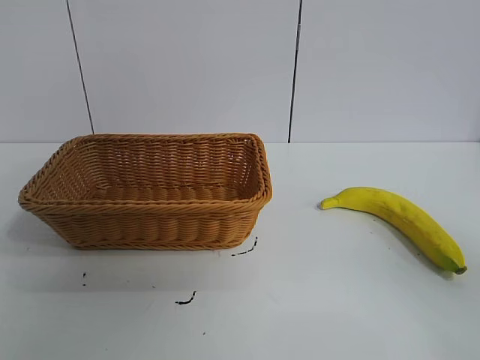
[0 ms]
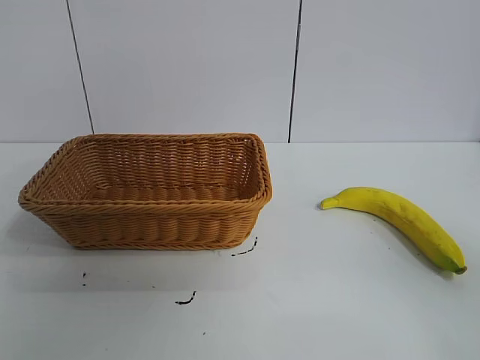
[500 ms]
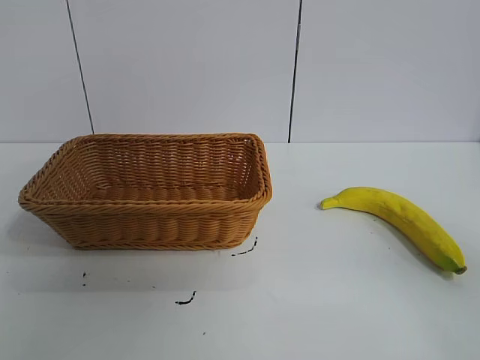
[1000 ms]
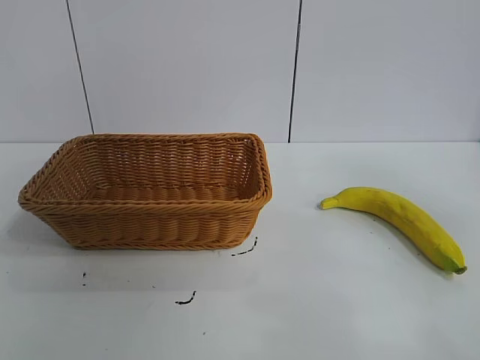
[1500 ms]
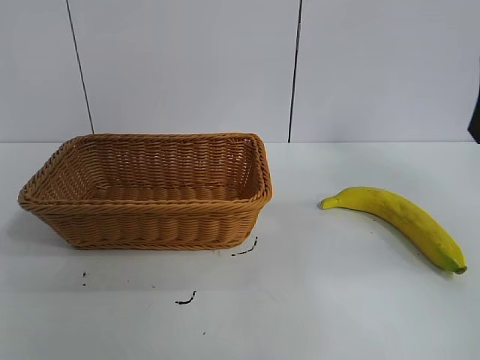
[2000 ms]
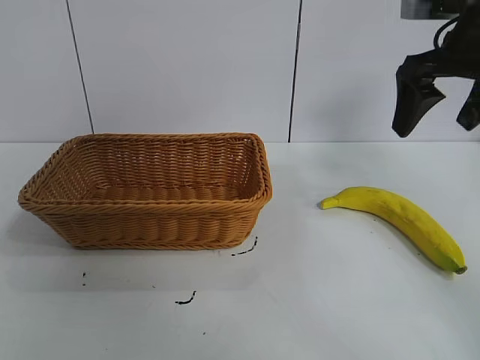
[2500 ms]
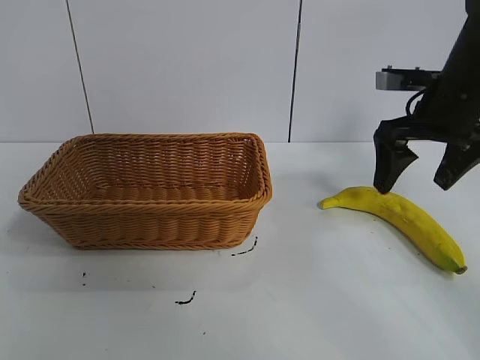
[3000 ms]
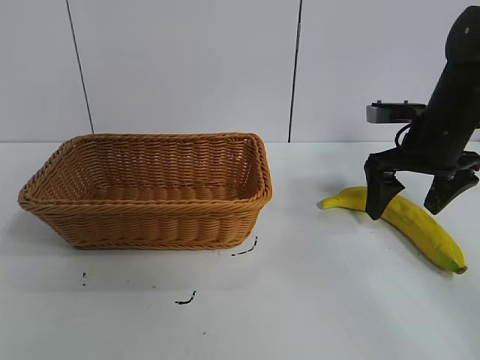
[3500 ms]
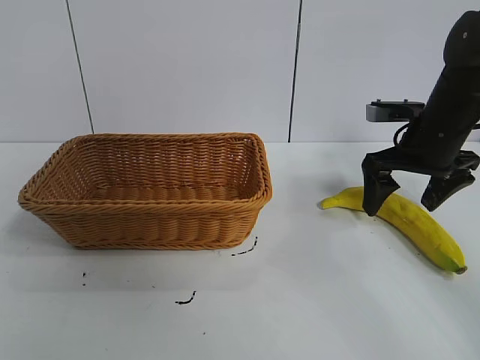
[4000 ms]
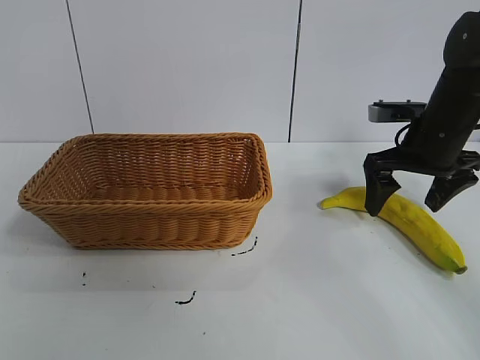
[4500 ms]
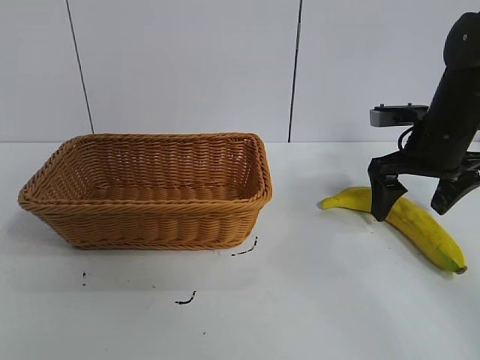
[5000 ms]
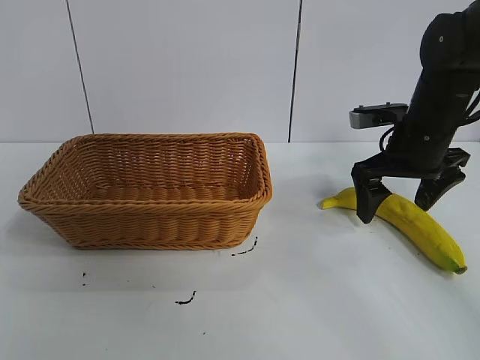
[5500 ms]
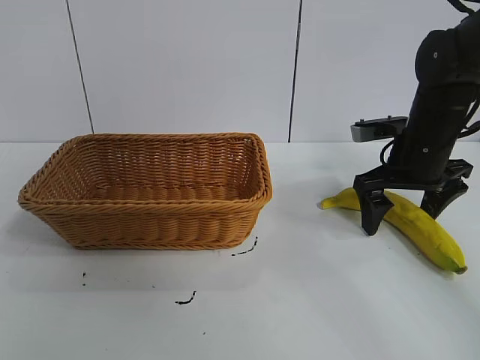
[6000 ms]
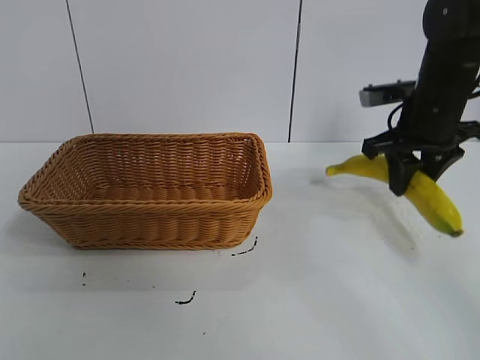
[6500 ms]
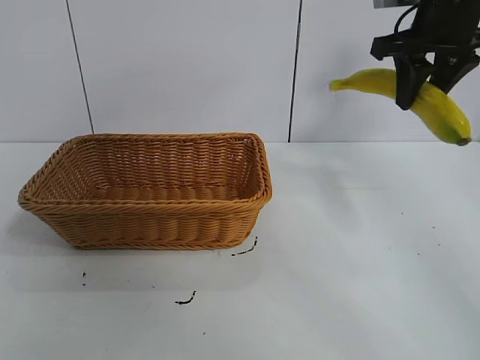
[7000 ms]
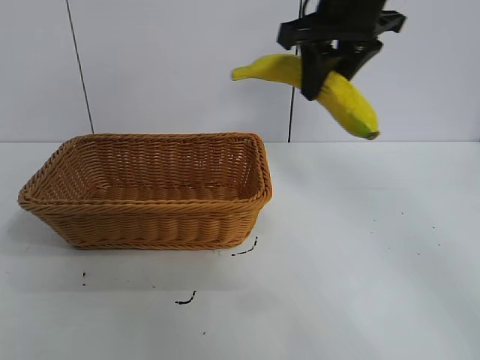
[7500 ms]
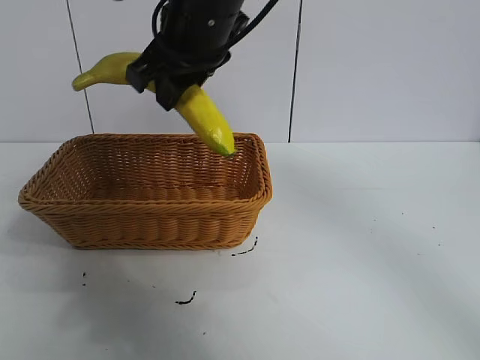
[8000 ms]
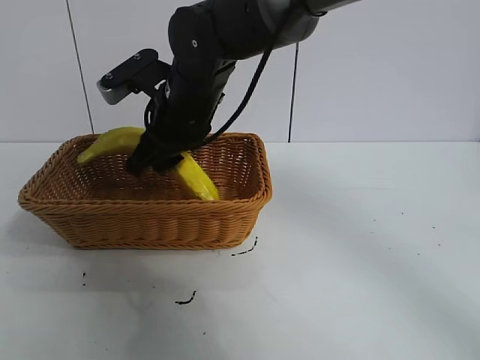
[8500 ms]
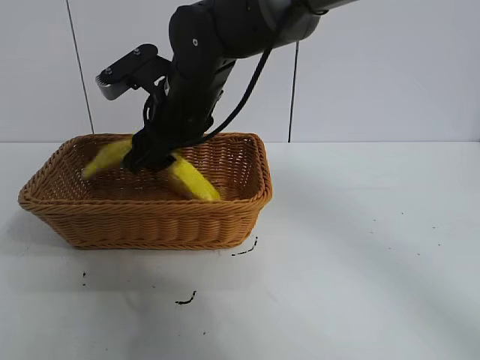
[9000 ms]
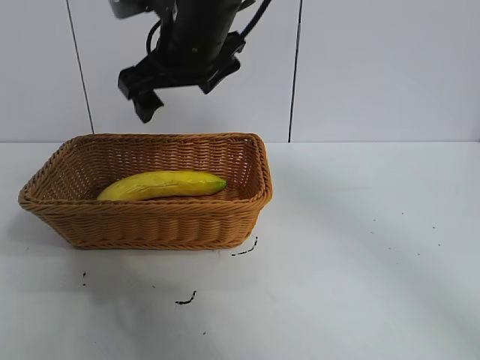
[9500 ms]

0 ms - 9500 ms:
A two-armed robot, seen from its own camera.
Task of the whole recording: pick up the banana and put it into the basket.
Step, 1000 ms - 6000 ms: Grasp the banana with right gripper.
Step, 6500 ms - 9000 ms: Place the banana in the basket with right gripper.
